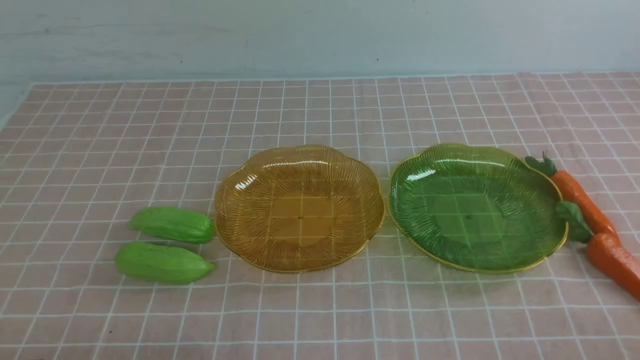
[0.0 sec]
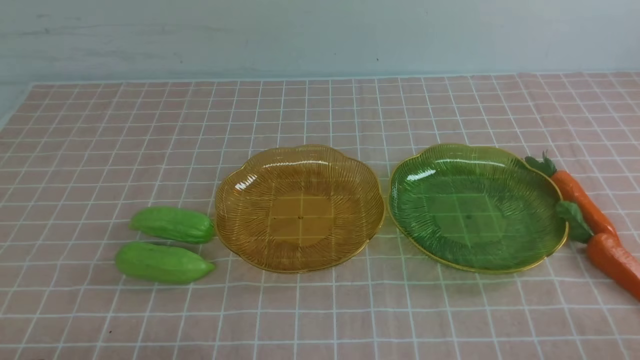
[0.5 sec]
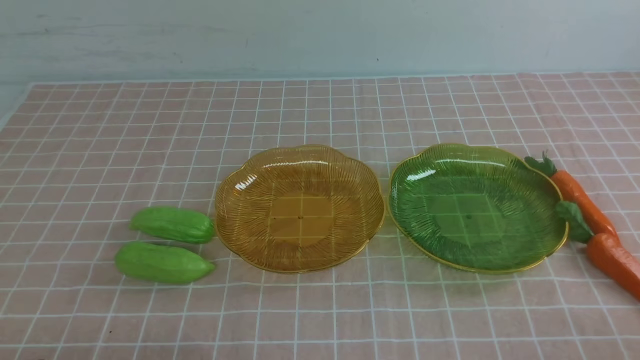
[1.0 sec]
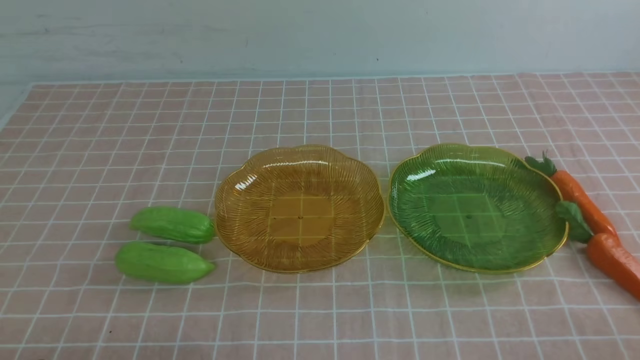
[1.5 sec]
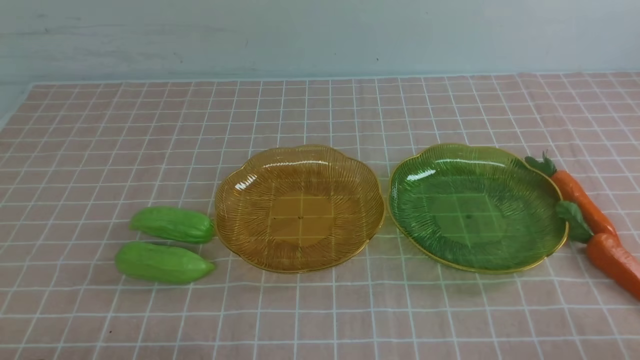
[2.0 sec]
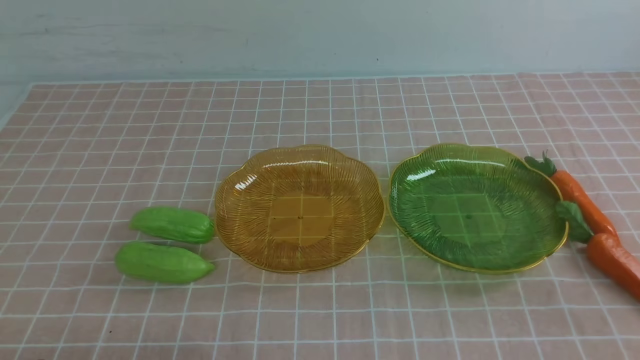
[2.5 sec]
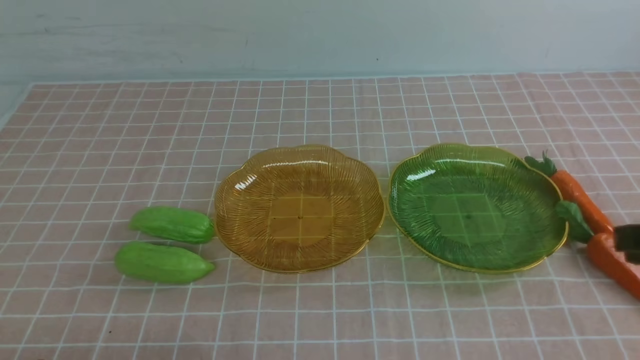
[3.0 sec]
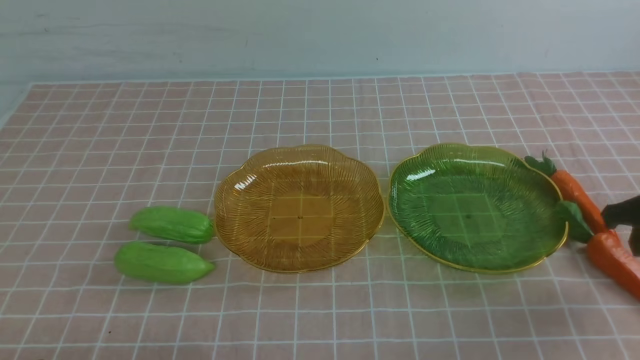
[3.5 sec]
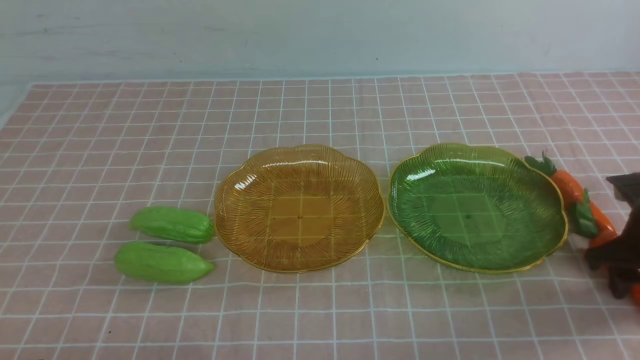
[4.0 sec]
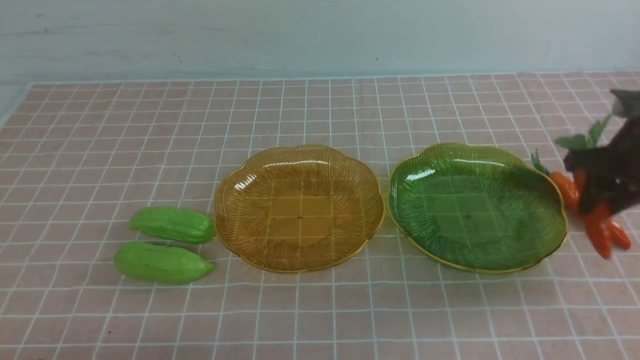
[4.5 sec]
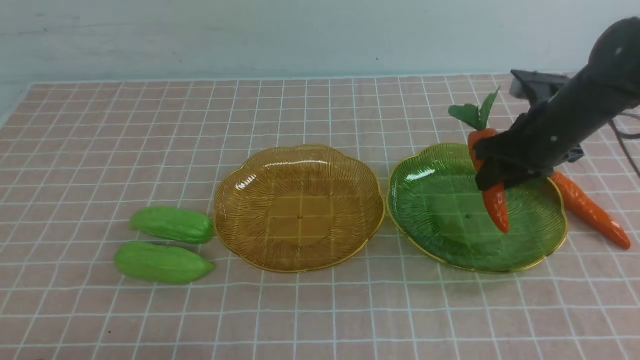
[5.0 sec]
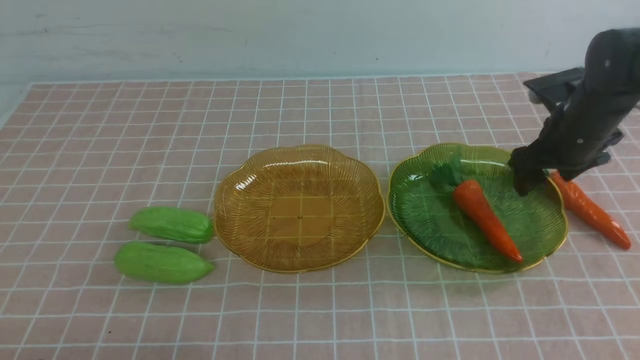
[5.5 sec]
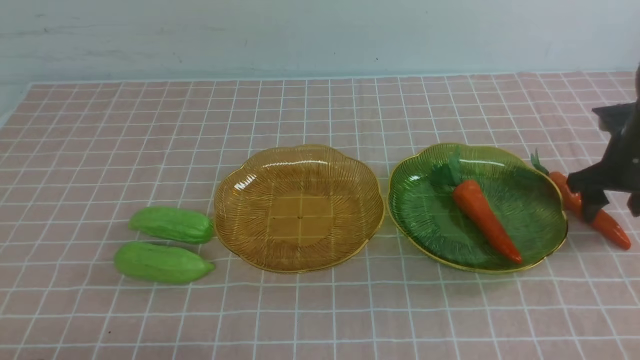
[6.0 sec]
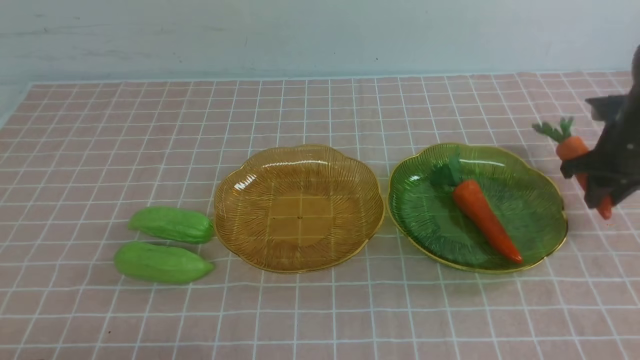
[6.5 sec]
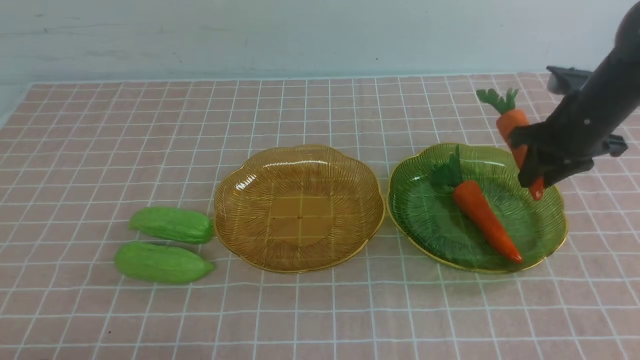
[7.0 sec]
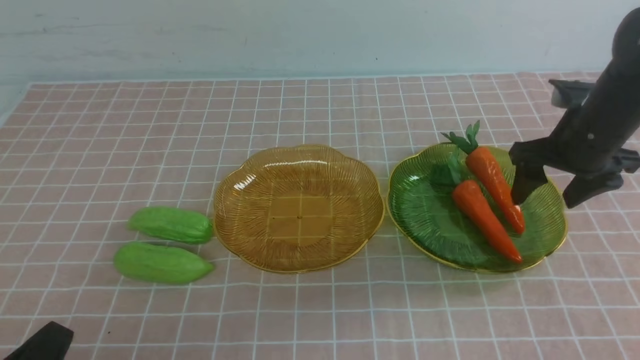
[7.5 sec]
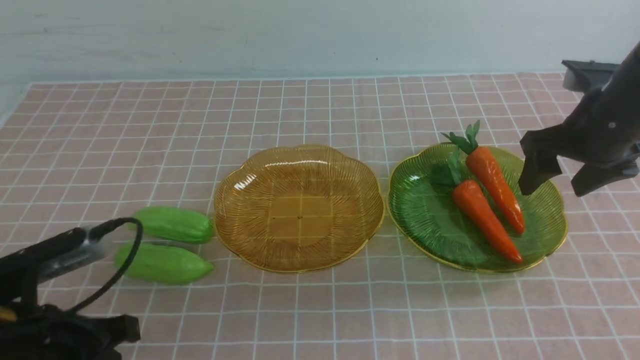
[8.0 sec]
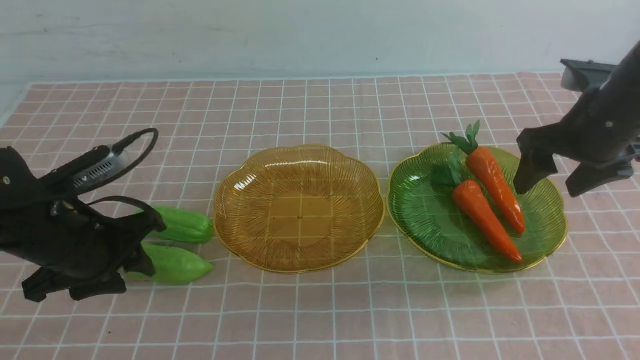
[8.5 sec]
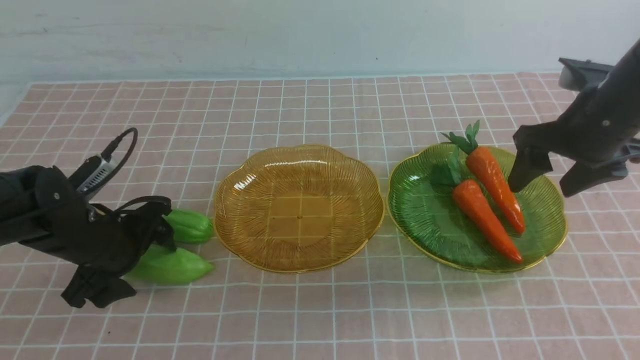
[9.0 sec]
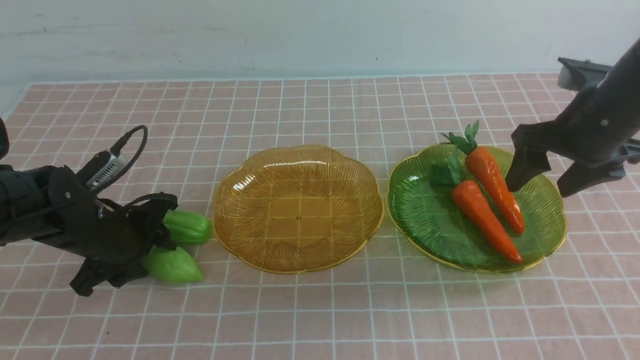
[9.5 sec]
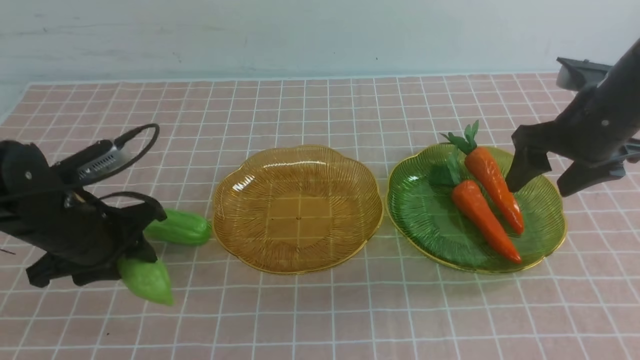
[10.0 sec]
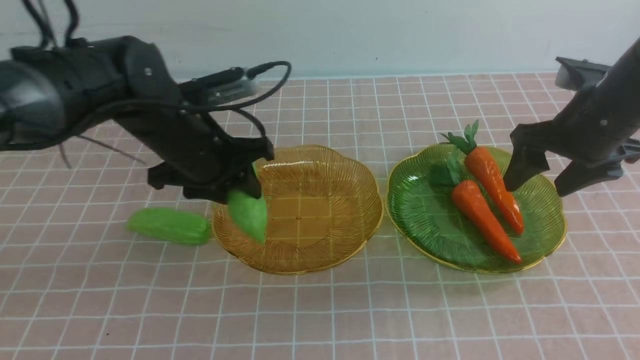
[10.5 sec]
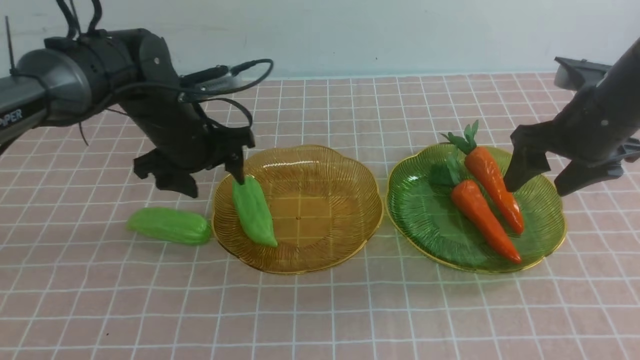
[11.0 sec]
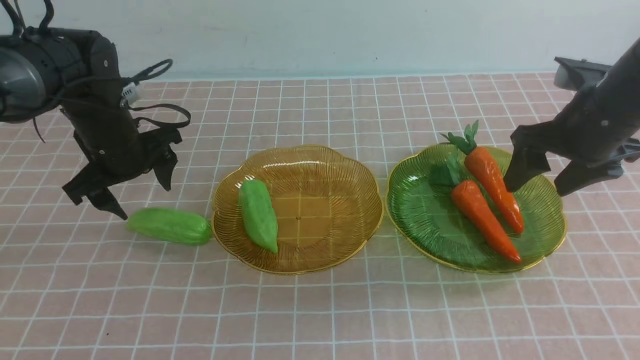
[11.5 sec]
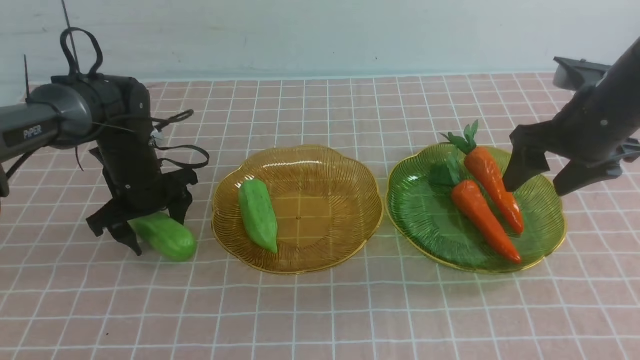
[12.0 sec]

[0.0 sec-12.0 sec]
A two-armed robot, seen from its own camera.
Step, 0.0 sec to 5.0 sec: use the right arm to grab a carrot and put it into the right plate.
Step, 5.5 sec to 7.0 sec: use the right arm to grab a carrot and put it into the right plate.
2.0 sec to 4.0 sec: The right gripper heads forward, covering some 25 cm, and opens.
4.0 sec to 6.0 sec: The right gripper heads forward, covering about 10 cm, moves about 10 cm to the left and comes back, and opens its fingers.
6.0 sec to 8.0 sec: The right gripper goes roughly 10 cm to the left and upward, and closes, then reopens. The left gripper moves forward and upward, some 10 cm.
8.0 sec to 10.0 sec: The left gripper goes approximately 15 cm forward, and opens.
10.0 sec to 12.0 sec: The left gripper is displaced forward by approximately 10 cm, and opens.

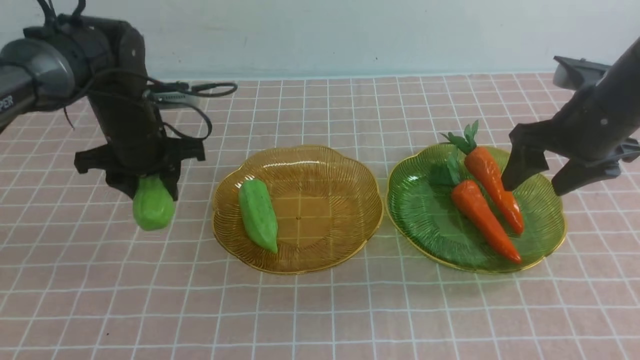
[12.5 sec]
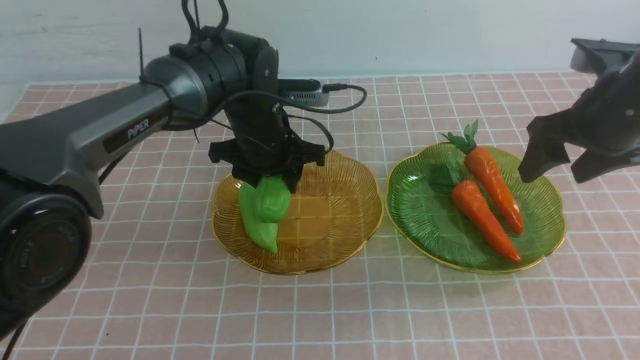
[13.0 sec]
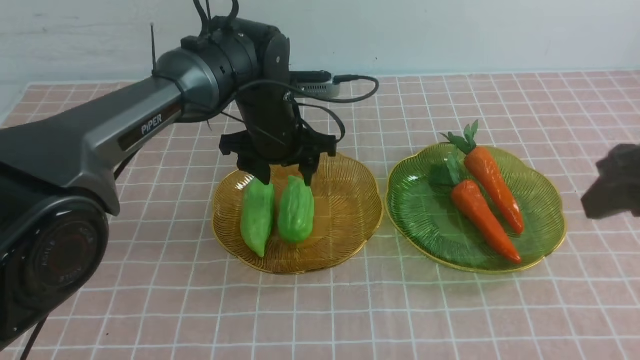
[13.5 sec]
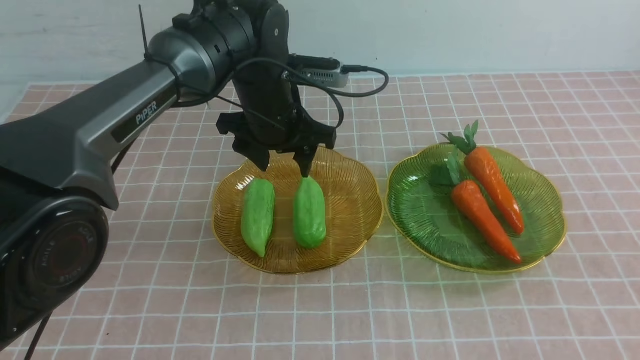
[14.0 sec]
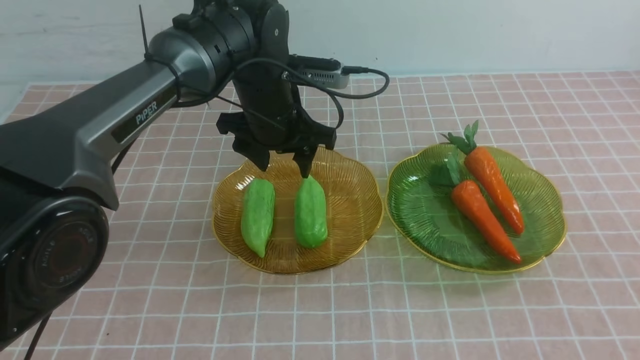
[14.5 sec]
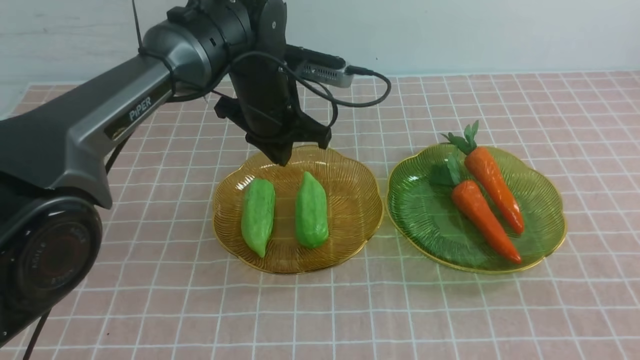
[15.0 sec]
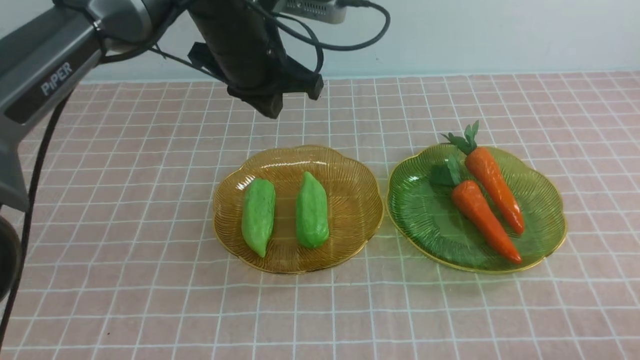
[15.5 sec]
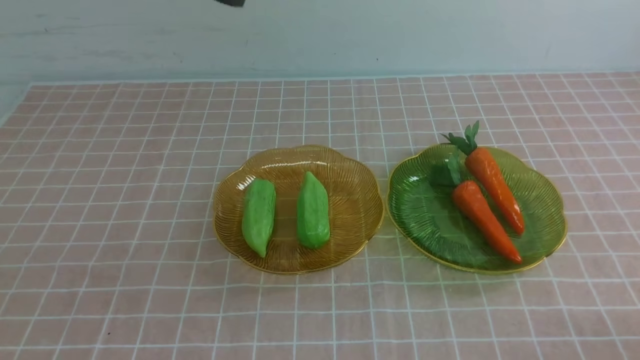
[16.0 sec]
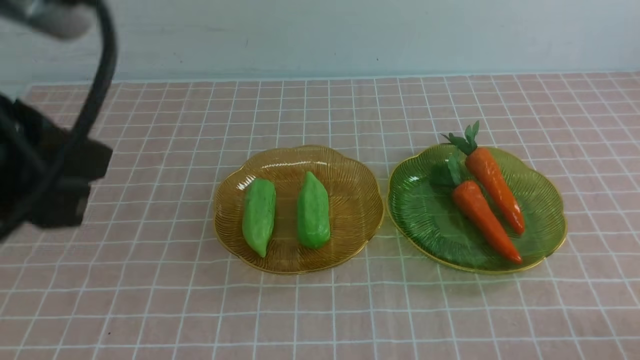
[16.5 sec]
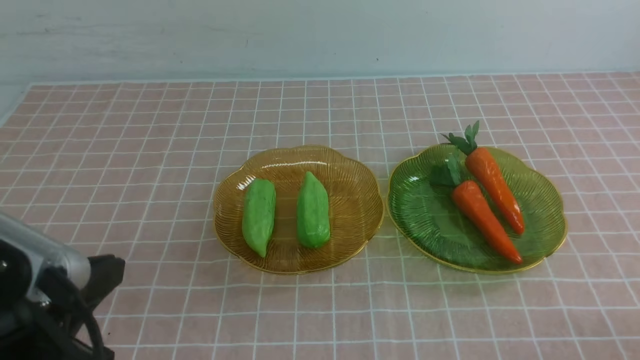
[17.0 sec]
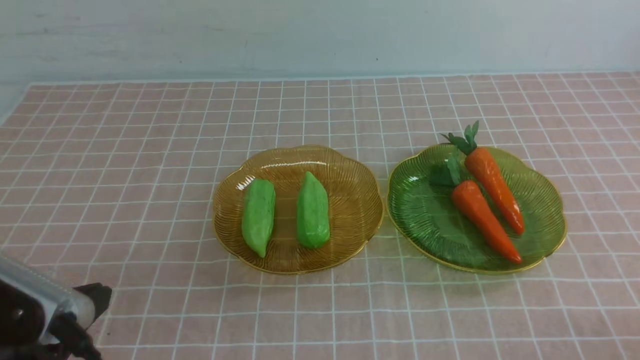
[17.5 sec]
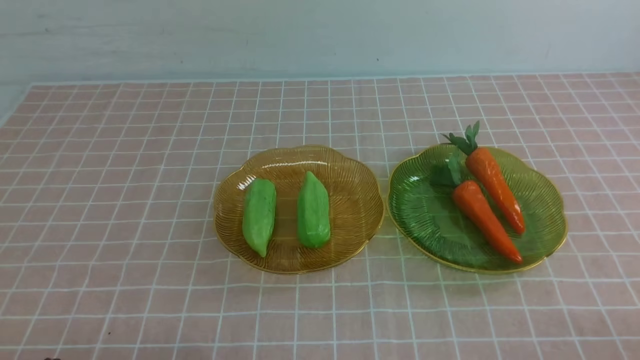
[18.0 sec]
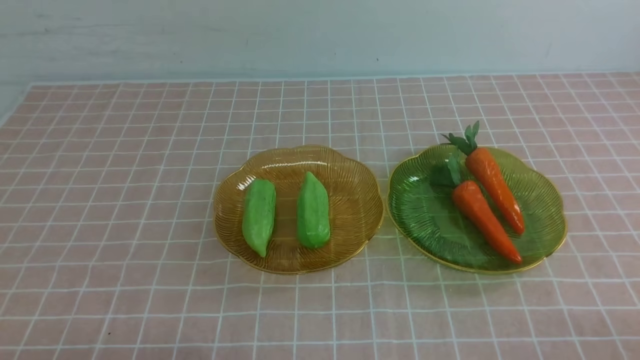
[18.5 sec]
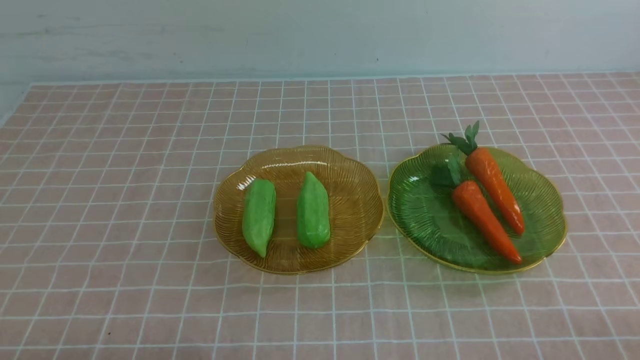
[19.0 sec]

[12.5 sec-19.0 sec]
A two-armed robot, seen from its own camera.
12.5 sec to 14.5 sec: The right gripper travels backward by roughly 25 cm, and closes its fingers. Meanwhile the left gripper goes some 15 cm to the right.
14.5 sec to 17.0 sec: The right gripper heads downward, covering about 10 cm. Meanwhile the left gripper shifts roughly 35 cm backward and to the left, and closes its fingers.
17.0 sec to 19.0 sec: The left gripper goes some 15 cm downward and backward.

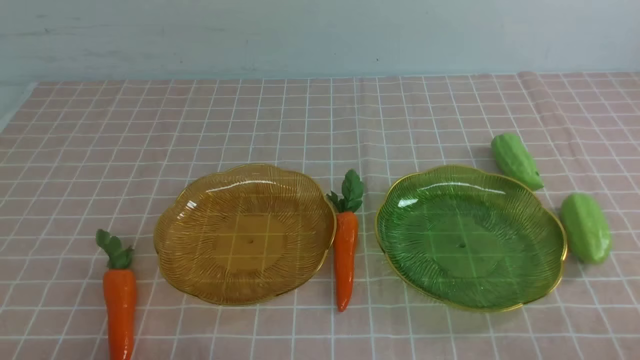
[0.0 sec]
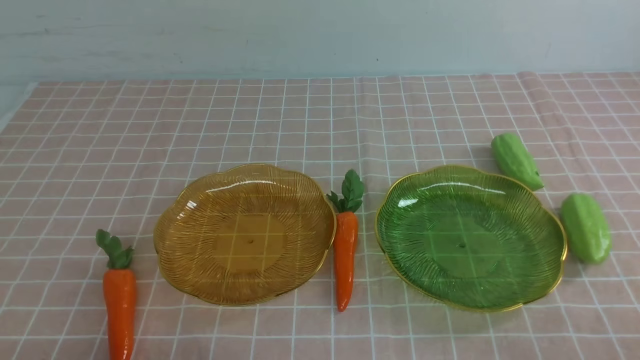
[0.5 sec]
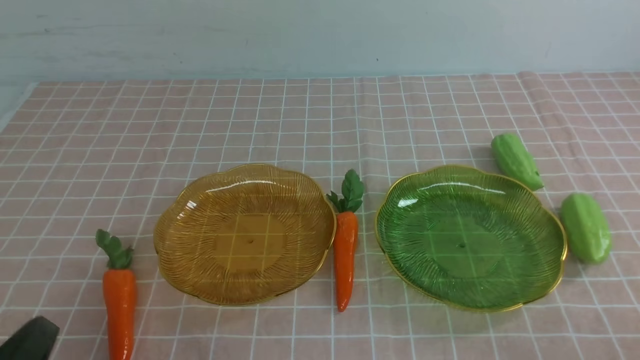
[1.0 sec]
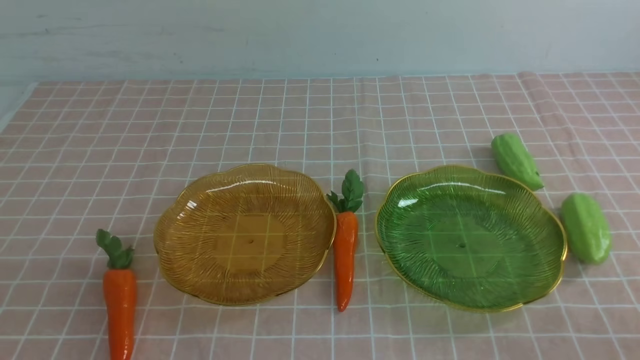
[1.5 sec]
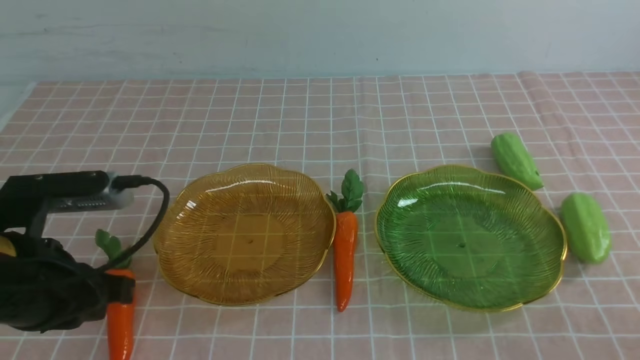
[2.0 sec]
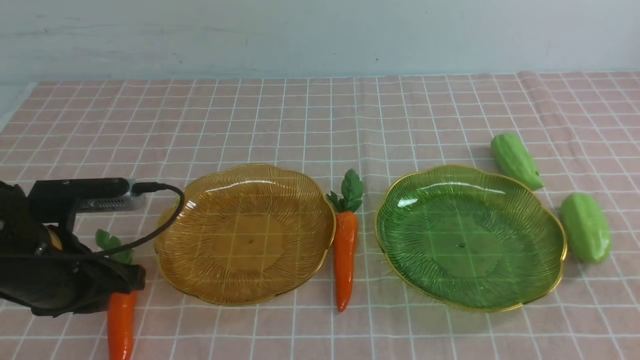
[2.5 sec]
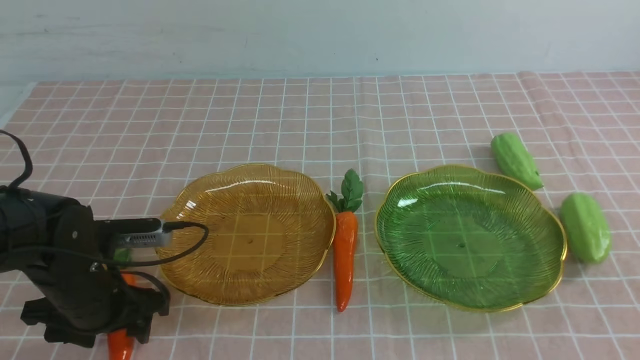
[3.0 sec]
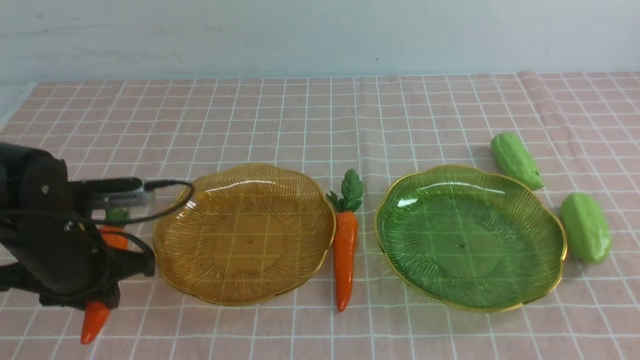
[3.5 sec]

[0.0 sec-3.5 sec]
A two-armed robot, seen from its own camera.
0.0 sec to 2.0 sec: The left gripper heads forward and upward, covering about 15 cm.
2.0 sec to 3.5 sec: The right gripper moves upward, approximately 10 cm; the left gripper shifts about 10 cm forward and downward, and opens up.
